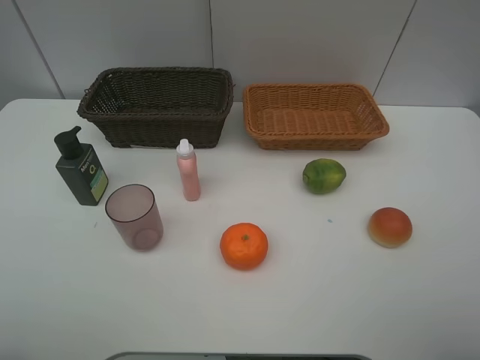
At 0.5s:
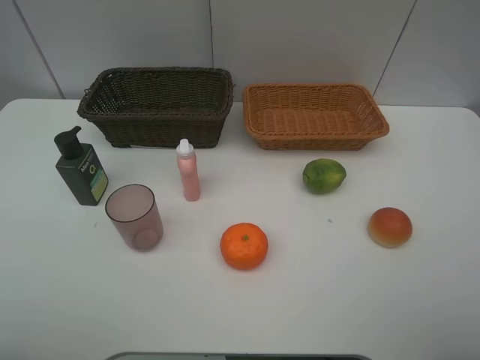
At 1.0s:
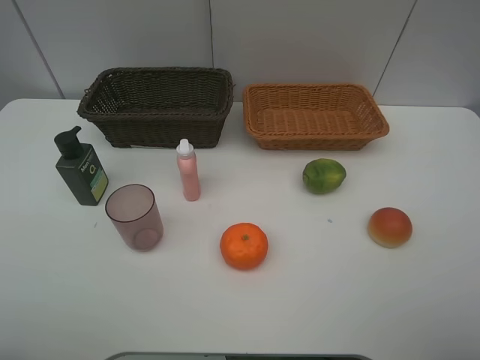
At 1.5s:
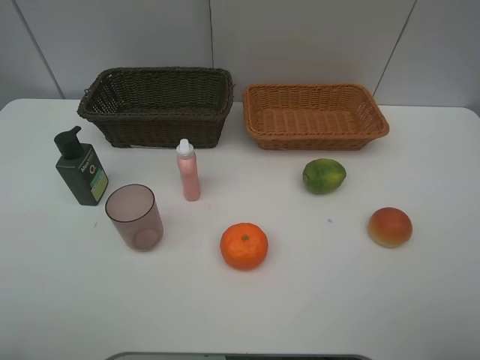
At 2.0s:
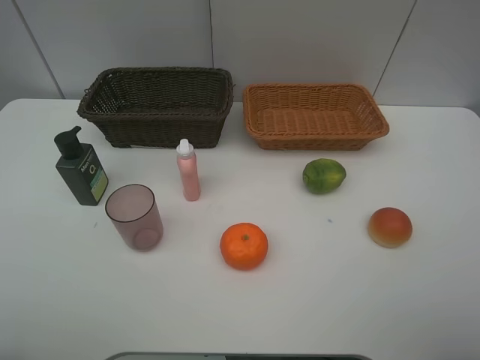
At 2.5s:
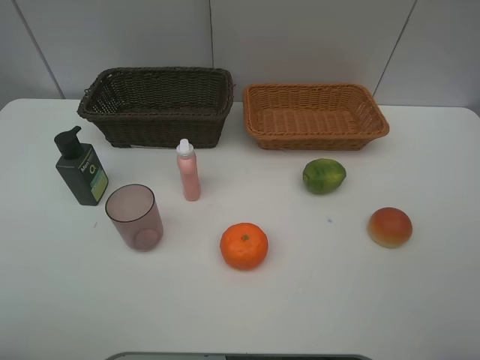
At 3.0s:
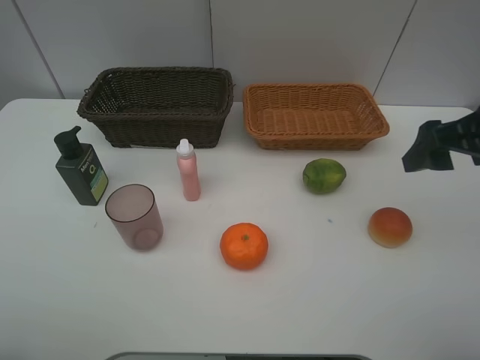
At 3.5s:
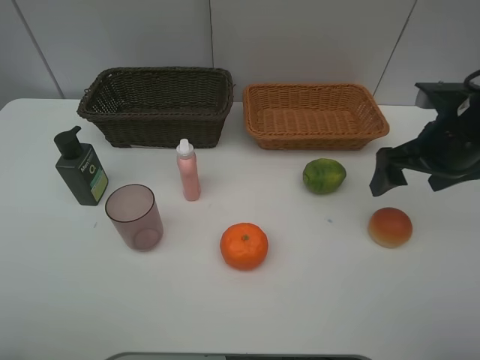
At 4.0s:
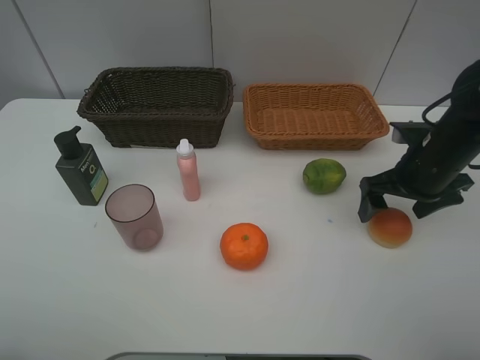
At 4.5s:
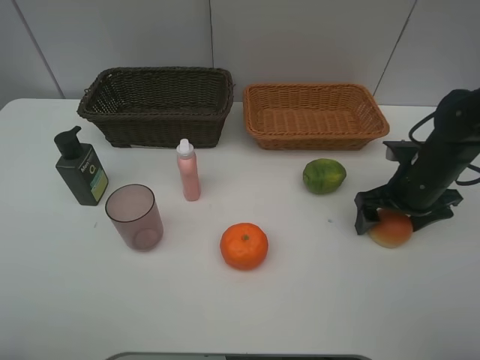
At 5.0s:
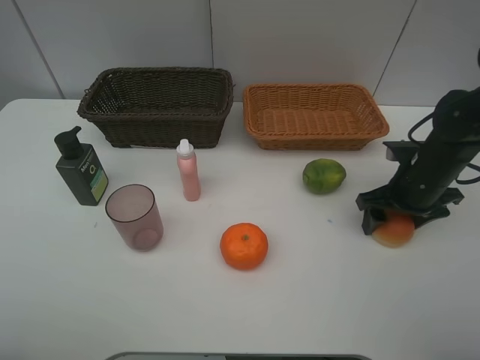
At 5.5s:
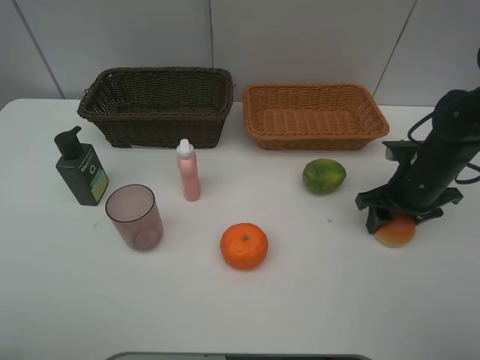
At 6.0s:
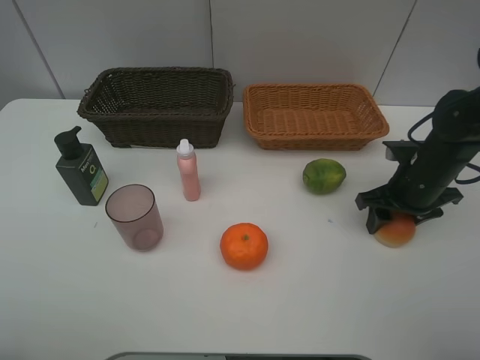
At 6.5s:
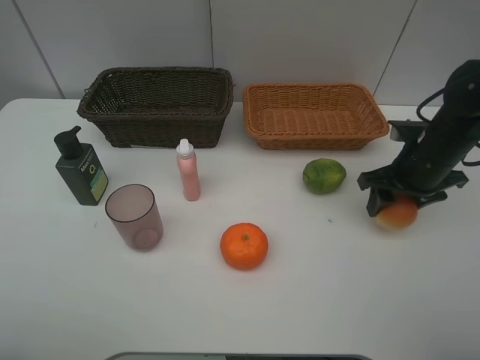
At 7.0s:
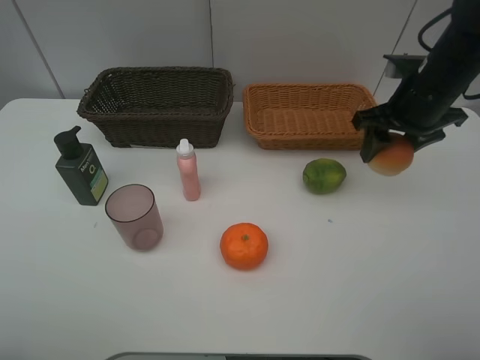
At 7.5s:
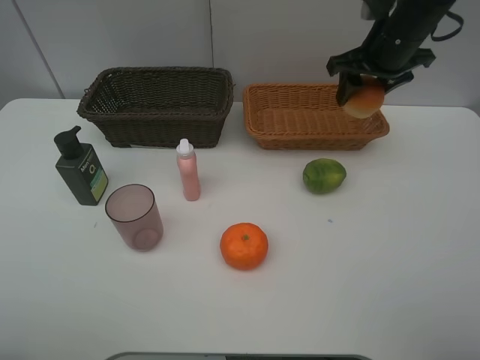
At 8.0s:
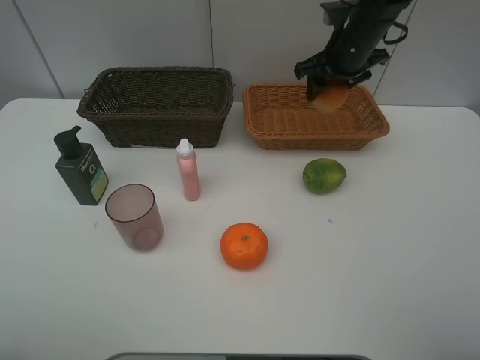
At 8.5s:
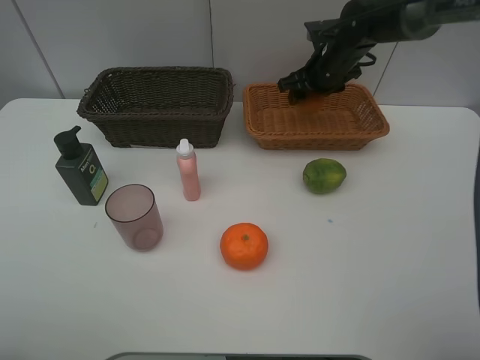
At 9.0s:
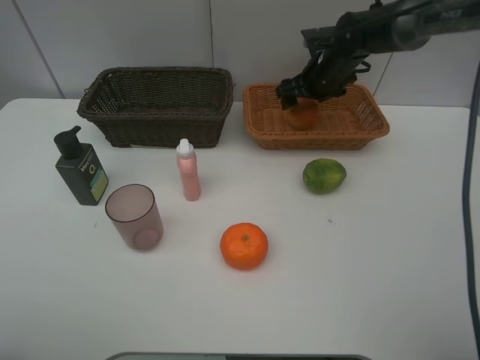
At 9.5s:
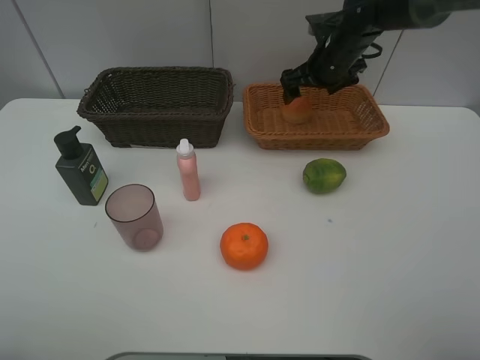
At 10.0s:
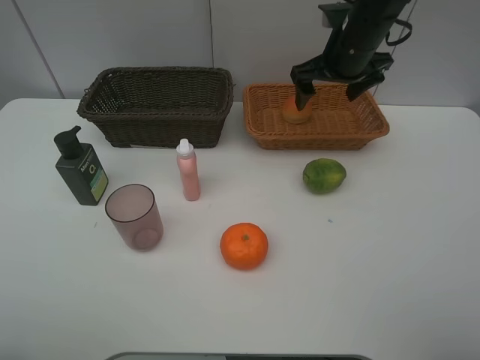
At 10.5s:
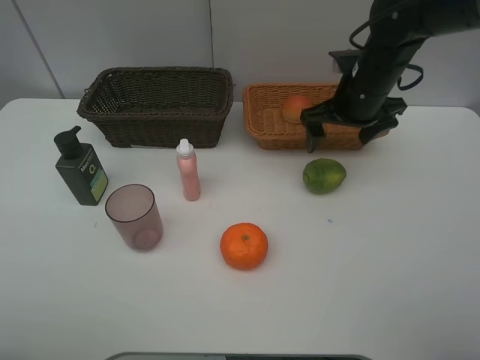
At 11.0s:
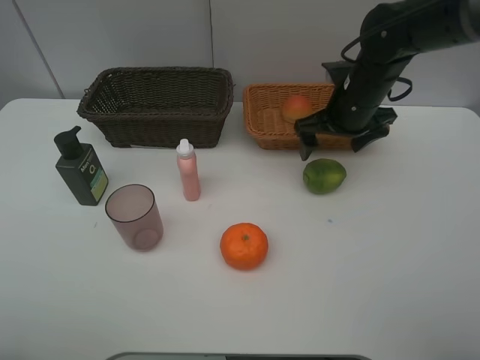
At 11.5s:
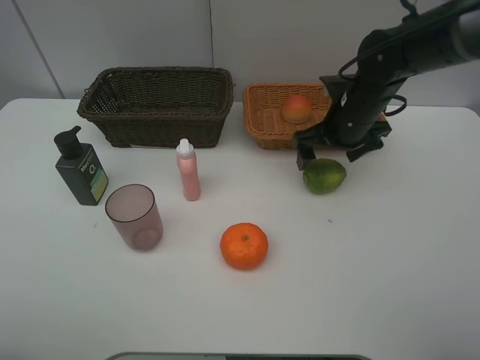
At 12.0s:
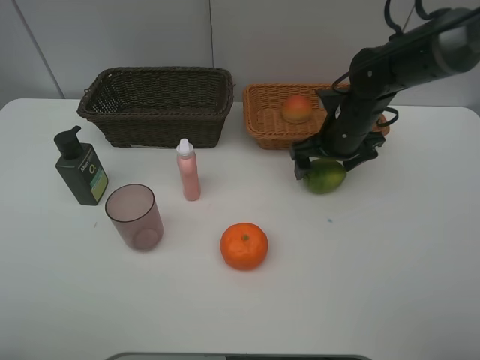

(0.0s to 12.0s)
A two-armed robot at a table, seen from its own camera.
Task of the whole recording: place multiple objects separately in different baskets.
0.0s - 2.0s: Both grippers stay about where they are.
2.0s - 4.0s: The right gripper travels forward and downward by roughly 30 cm.
4.0s - 6.0s: The right gripper closes.
6.0s - 8.0s: The right gripper is displaced forward, upward and to the left by roughly 20 cm.
8.0s - 10.0s: The right gripper travels downward and back again, about 5 cm each way, and opens its fingers.
10.0s - 12.0s: The right gripper moves downward, about 10 cm.

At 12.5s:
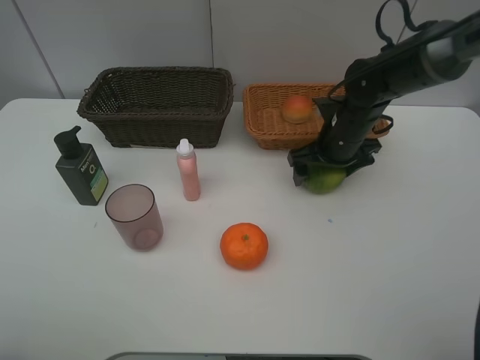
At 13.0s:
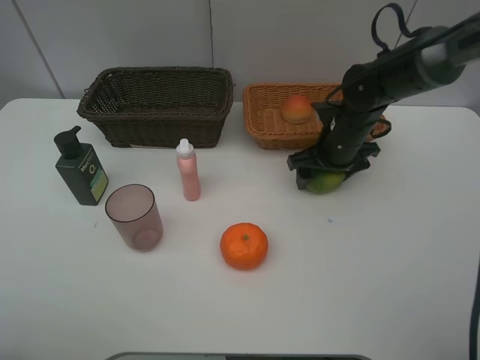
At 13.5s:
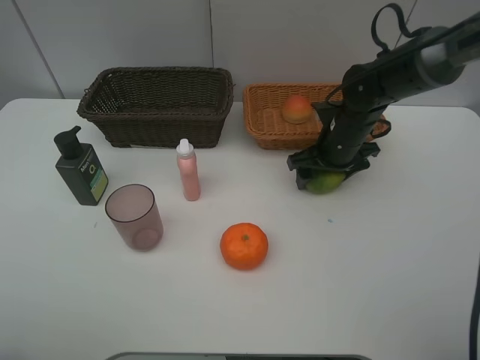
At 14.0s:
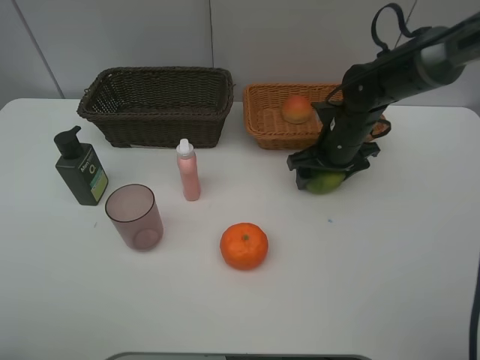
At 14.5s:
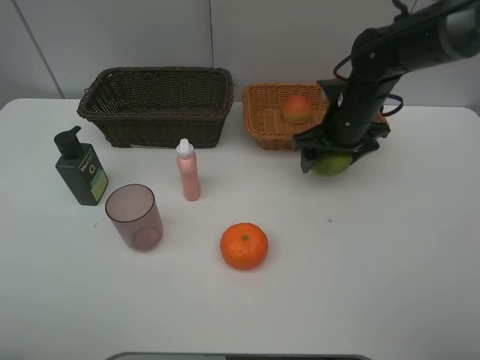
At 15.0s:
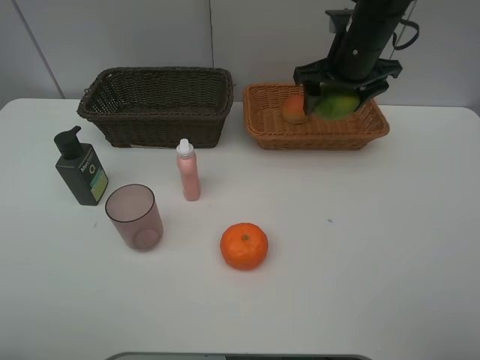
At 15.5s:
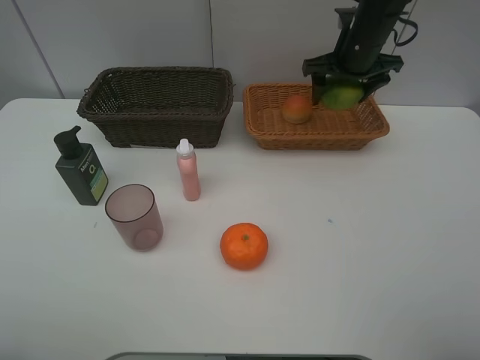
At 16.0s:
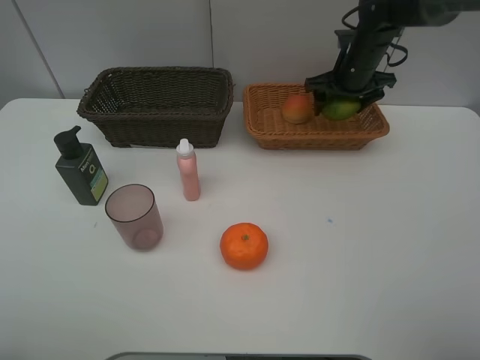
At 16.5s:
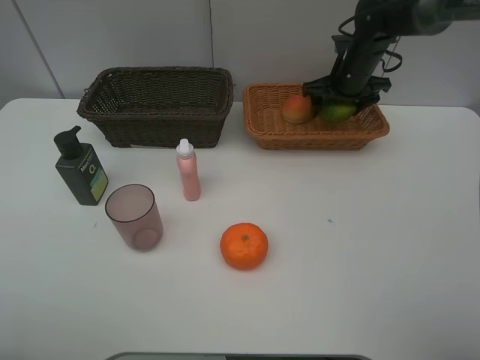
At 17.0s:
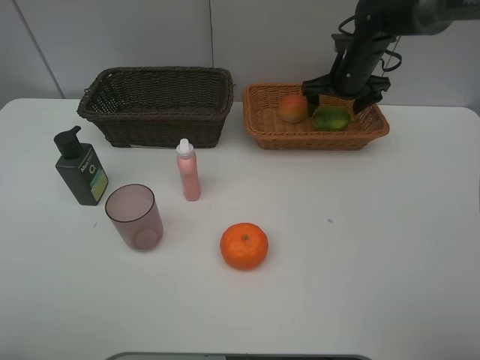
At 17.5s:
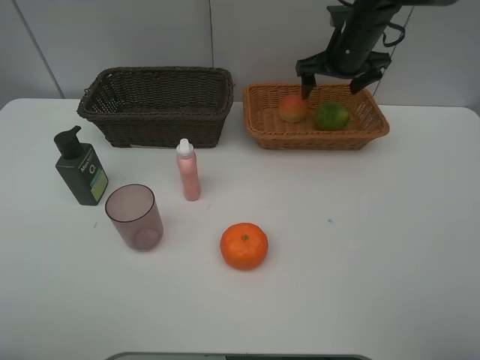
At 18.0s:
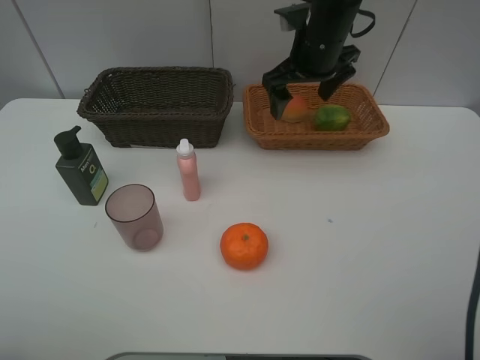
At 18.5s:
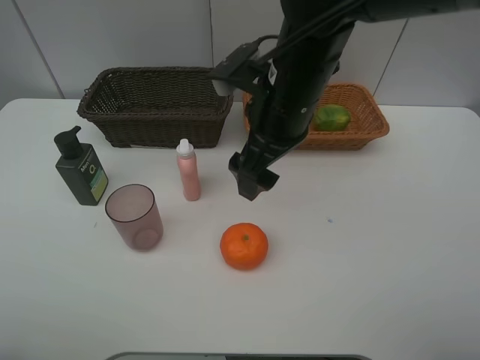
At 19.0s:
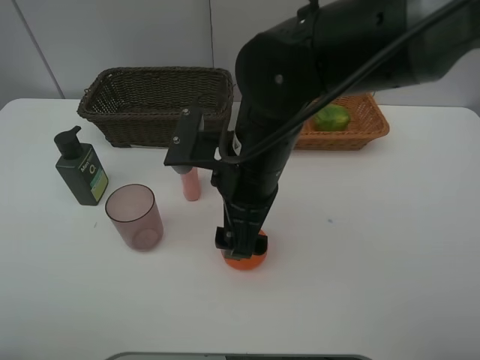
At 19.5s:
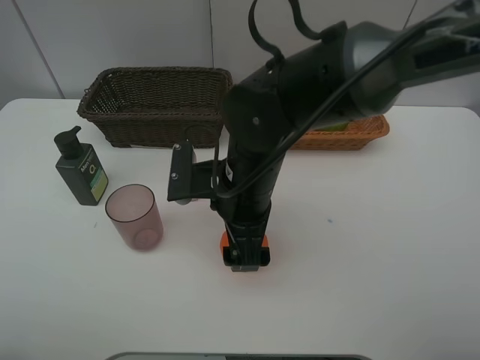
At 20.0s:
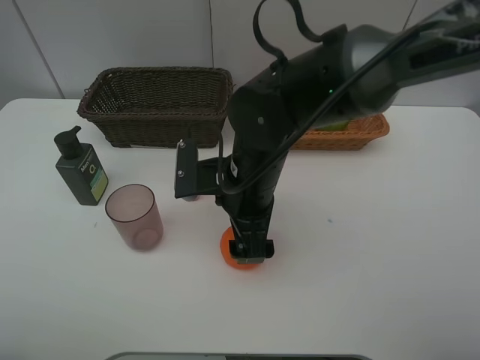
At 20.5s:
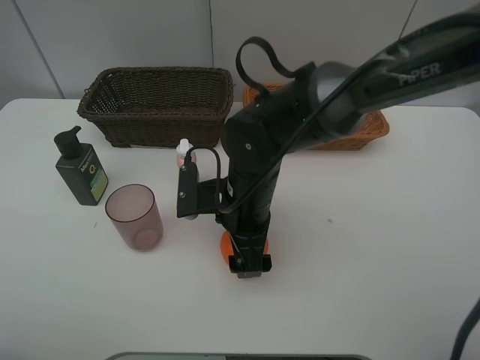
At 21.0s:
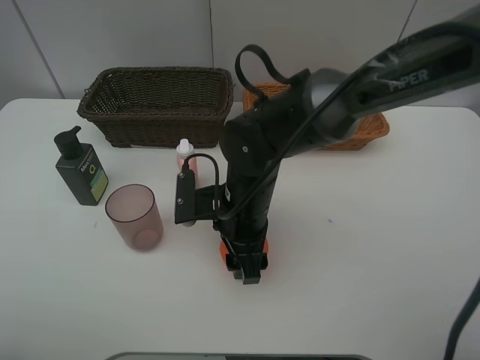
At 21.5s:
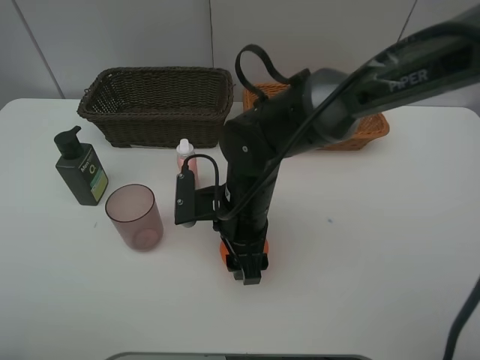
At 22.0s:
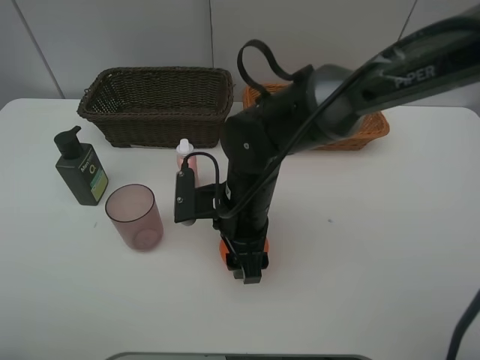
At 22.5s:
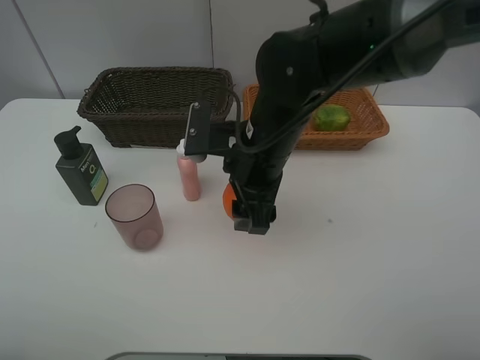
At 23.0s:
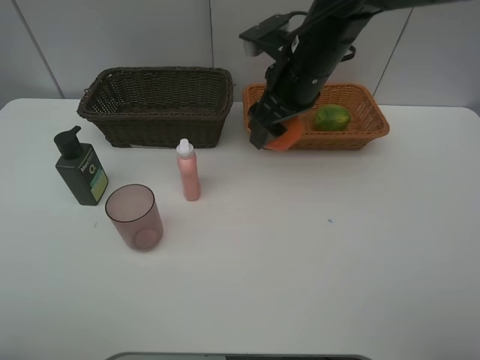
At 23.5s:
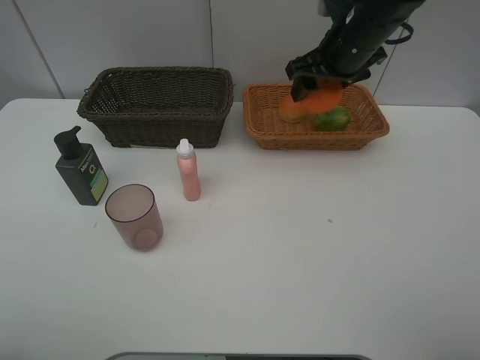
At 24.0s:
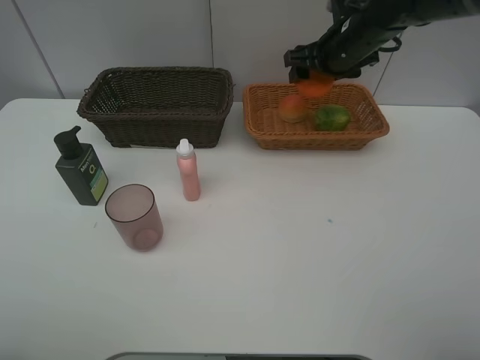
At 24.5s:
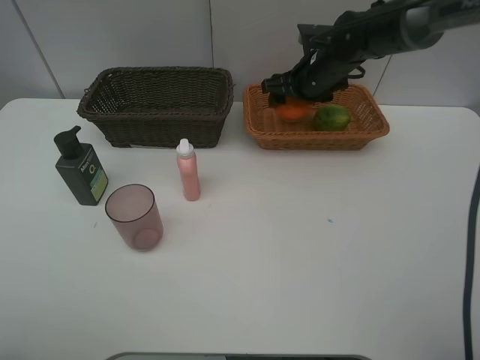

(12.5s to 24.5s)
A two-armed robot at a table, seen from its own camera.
Task of the whole recording: place multiple objects separately in different baskets.
12.5s - 14.5s: The right gripper closes.
14.5s - 16.5s: The right gripper heads forward, covering approximately 10 cm.
16.5s - 18.5s: The right gripper shifts some 25 cm backward and to the left.
18.5s - 20.5s: The right gripper goes roughly 10 cm downward.
20.5s - 22.5s: The right gripper goes about 10 cm upward, and closes its fingers.
22.5s - 24.5s: The right gripper heads forward and to the right, covering about 20 cm.

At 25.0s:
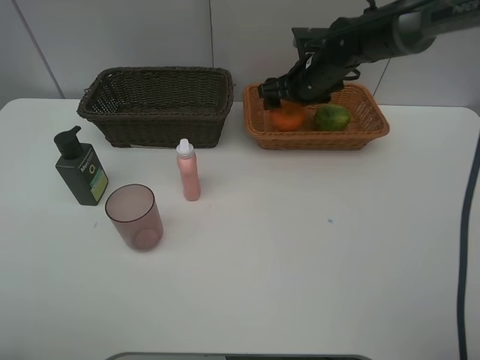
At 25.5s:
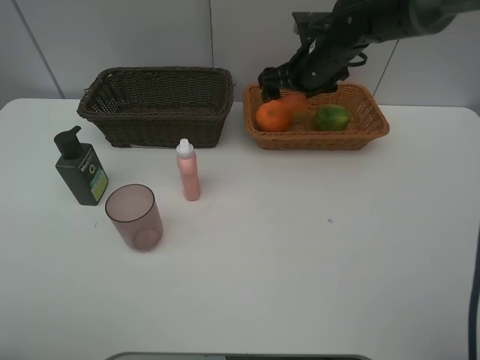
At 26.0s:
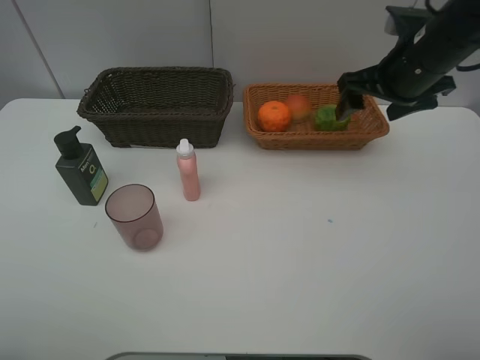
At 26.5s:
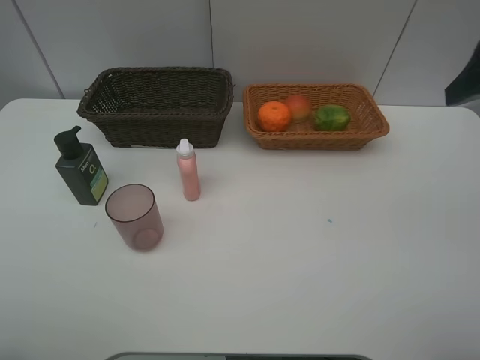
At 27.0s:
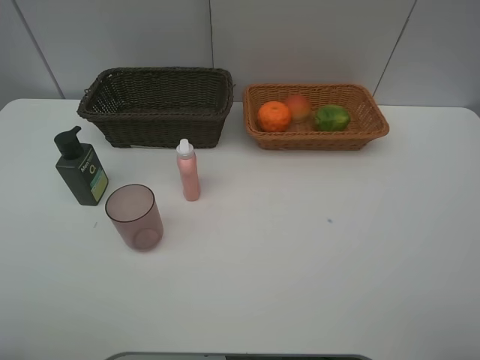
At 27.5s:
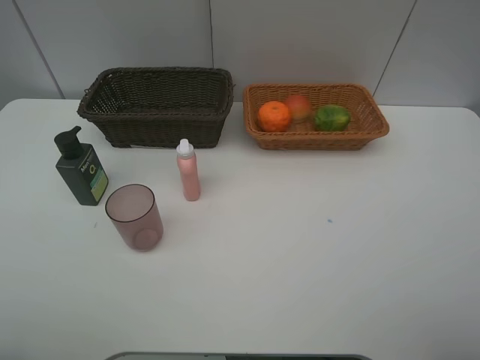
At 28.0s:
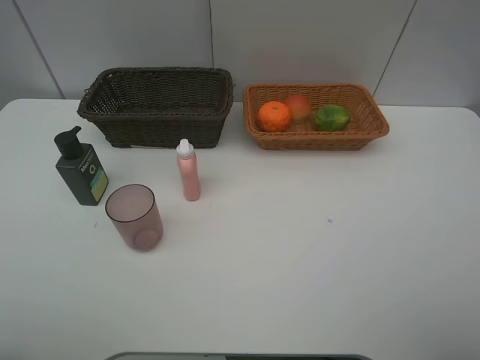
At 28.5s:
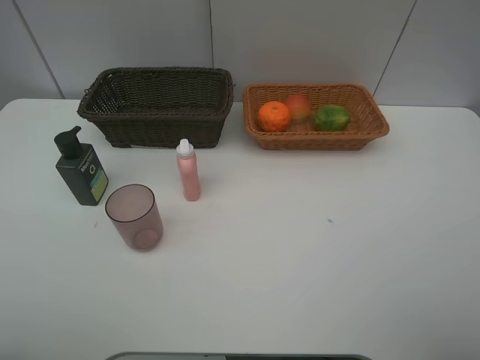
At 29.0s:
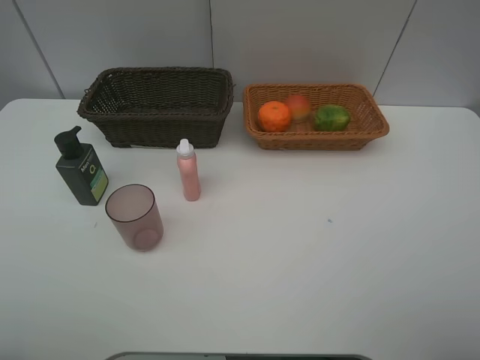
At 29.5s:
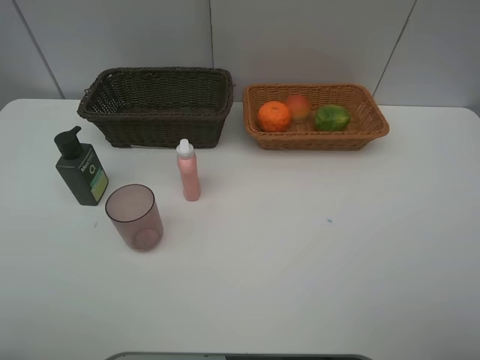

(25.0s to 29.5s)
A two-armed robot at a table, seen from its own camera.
Task of the whole recording: place multiple objects separately in different baskets.
25.0s - 27.0s: The right gripper travels backward, upward and to the right by about 50 cm.
